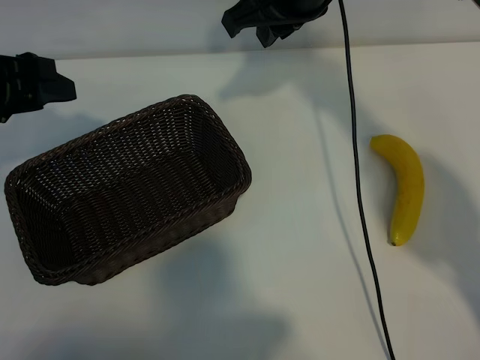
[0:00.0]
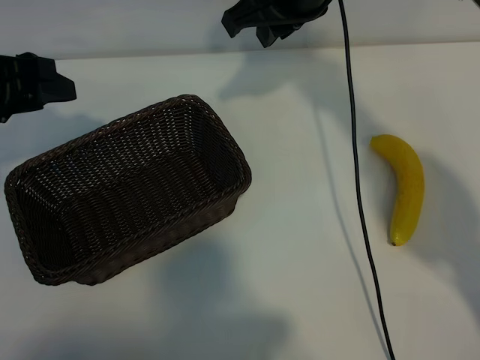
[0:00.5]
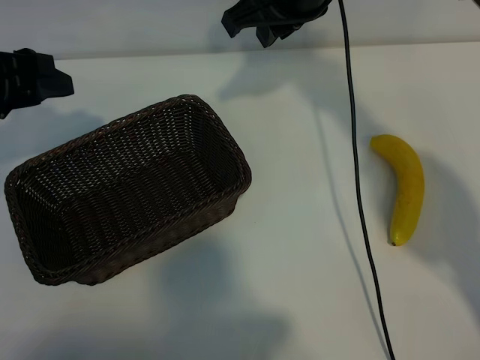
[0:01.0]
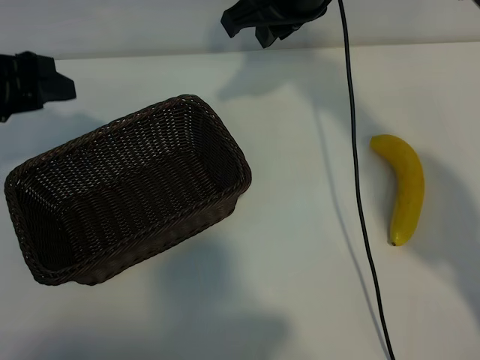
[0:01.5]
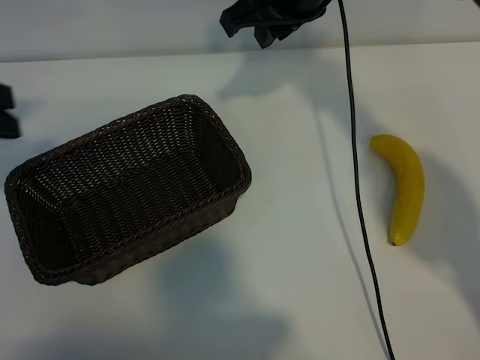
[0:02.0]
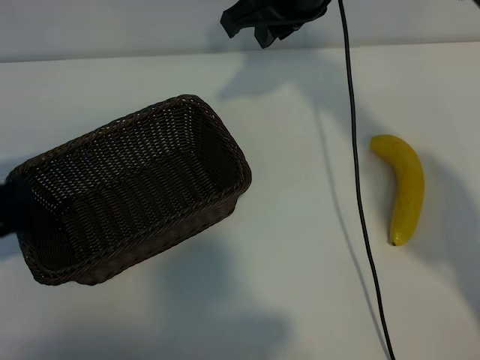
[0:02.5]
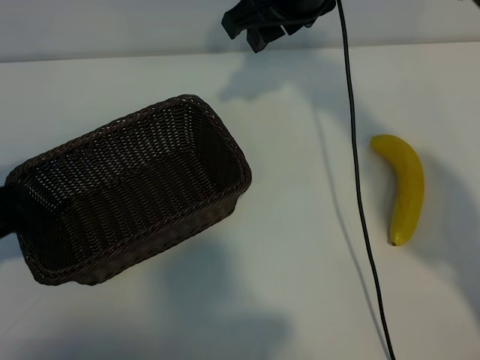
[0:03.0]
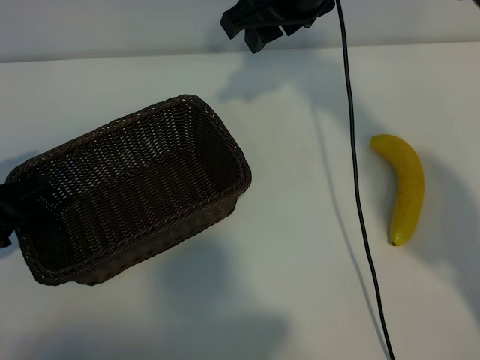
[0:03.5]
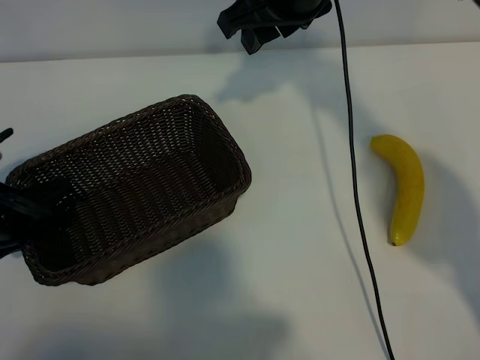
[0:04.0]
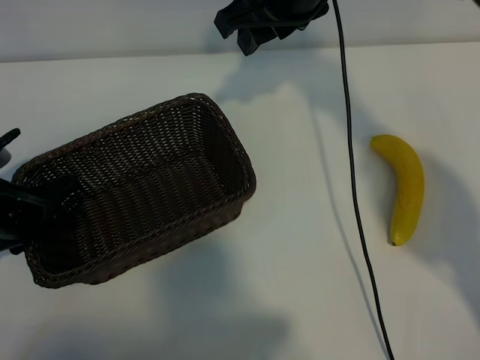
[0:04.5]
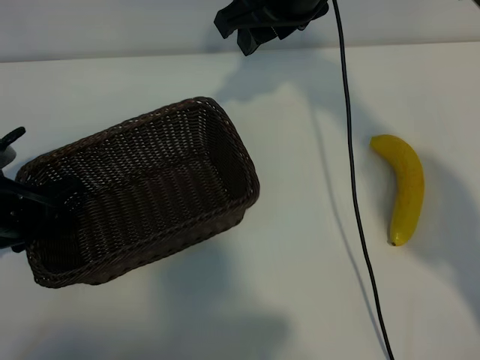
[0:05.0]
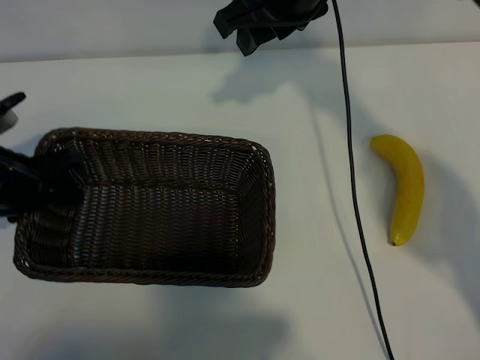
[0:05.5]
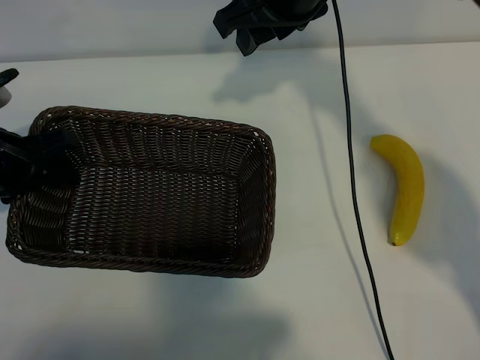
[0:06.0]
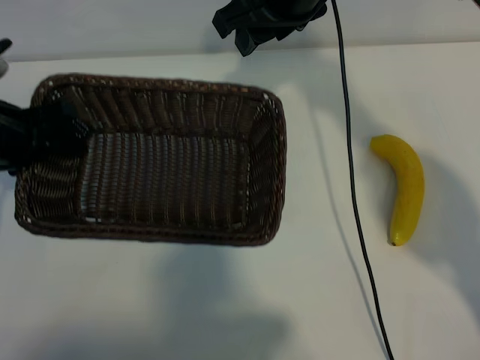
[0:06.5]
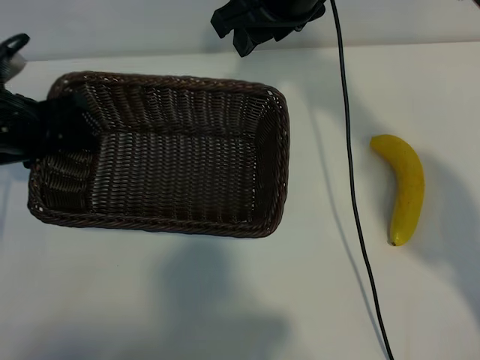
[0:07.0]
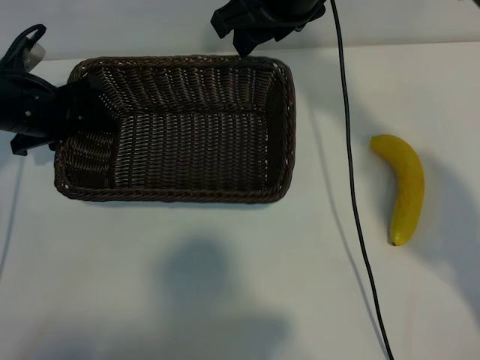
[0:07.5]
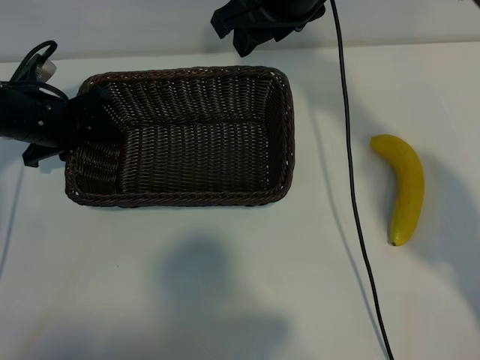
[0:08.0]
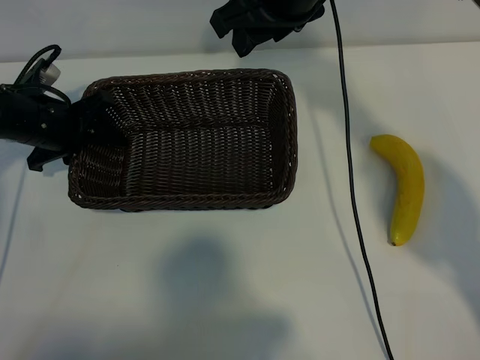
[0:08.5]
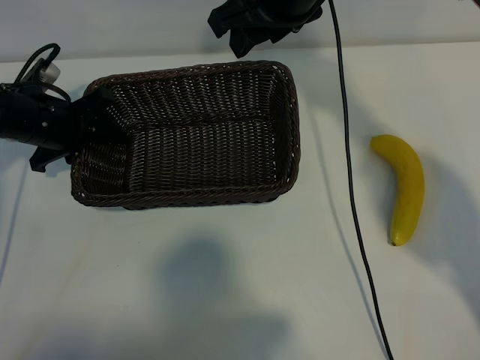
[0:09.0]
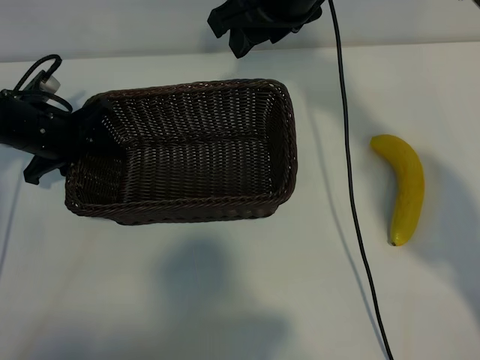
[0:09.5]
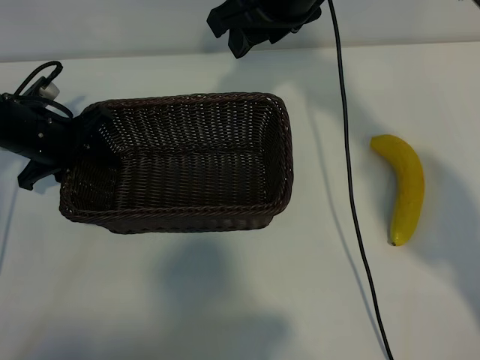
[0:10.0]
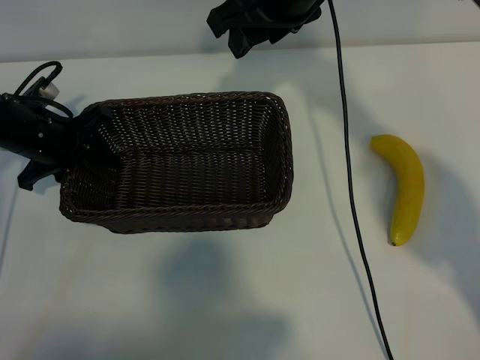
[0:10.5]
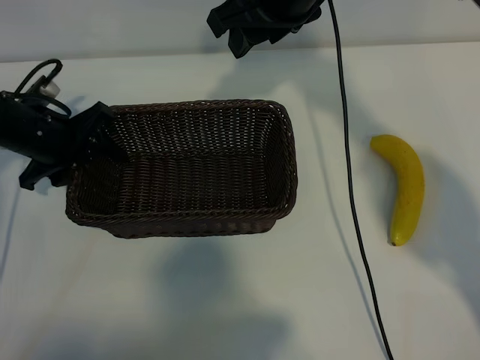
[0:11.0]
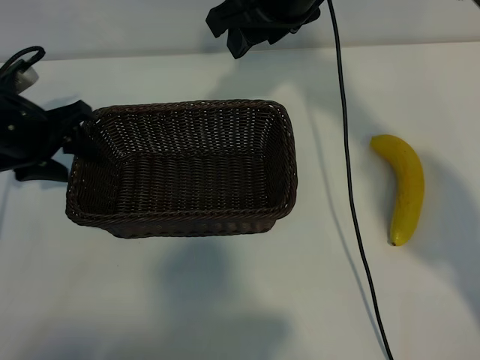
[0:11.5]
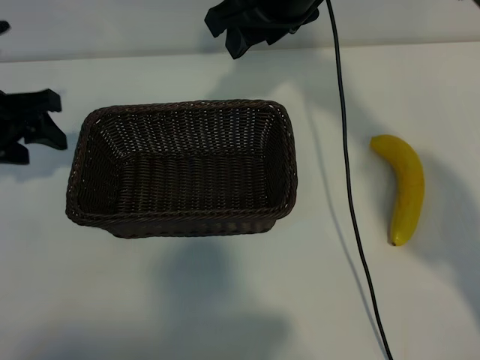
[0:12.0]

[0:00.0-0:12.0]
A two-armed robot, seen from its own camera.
Task of the whole recording: pick up the banana and put it into the basket.
Step, 0:01.0 to 0:04.5: Grasp the basket with the left gripper.
Step, 0:05.0 to 0:11.5: Place the basket in the center of the table with the left gripper.

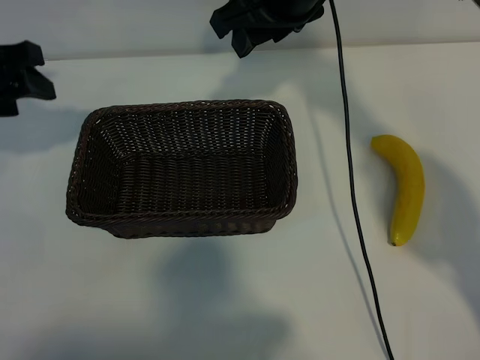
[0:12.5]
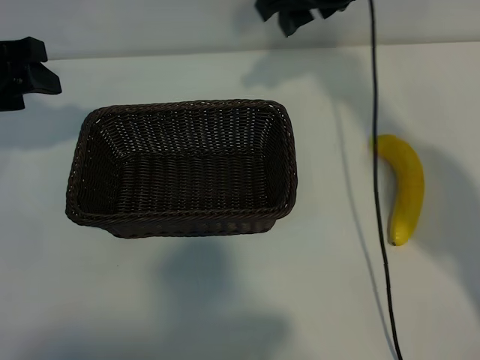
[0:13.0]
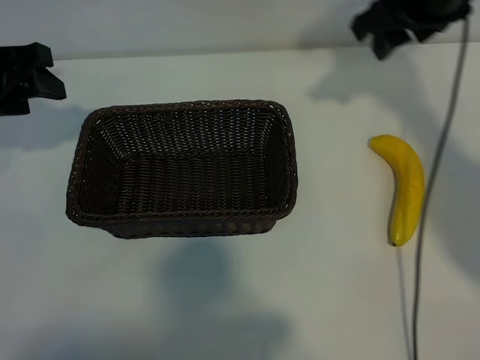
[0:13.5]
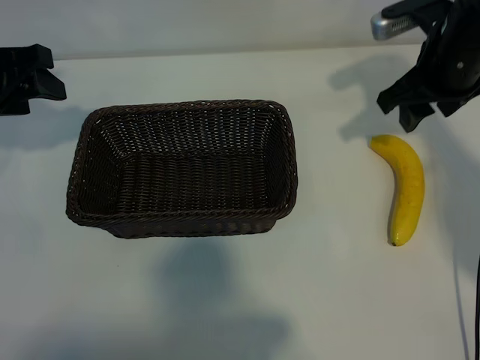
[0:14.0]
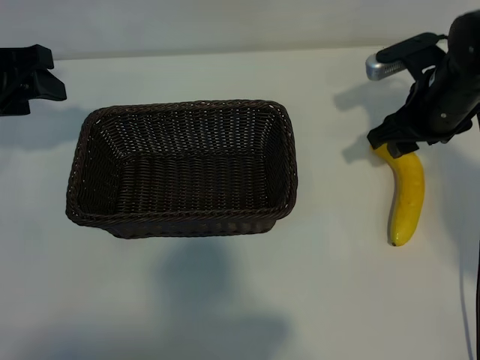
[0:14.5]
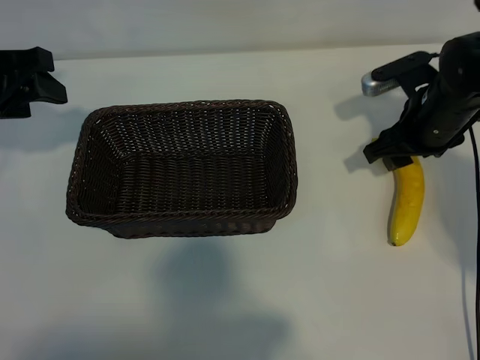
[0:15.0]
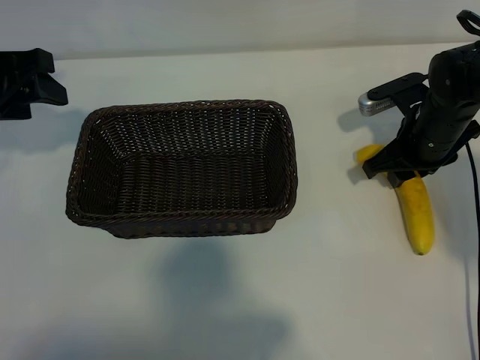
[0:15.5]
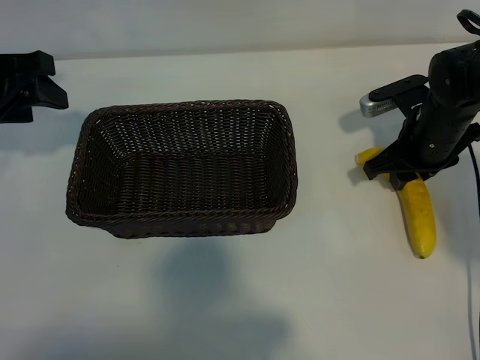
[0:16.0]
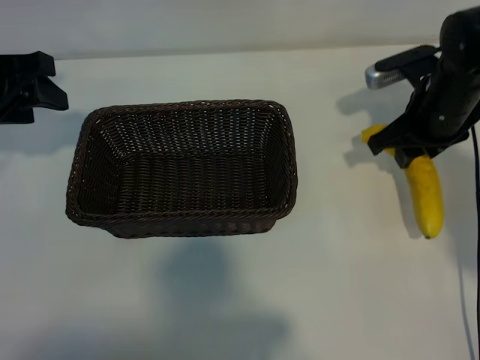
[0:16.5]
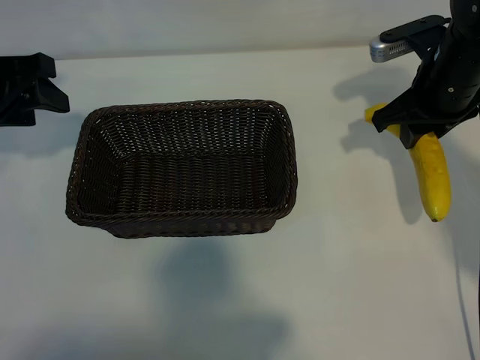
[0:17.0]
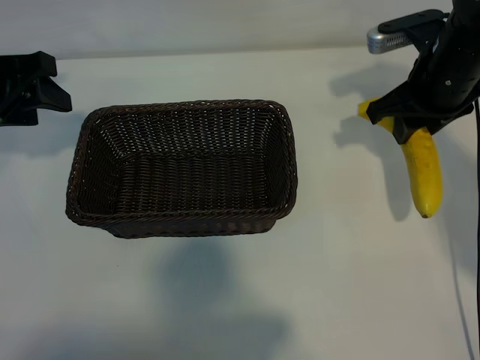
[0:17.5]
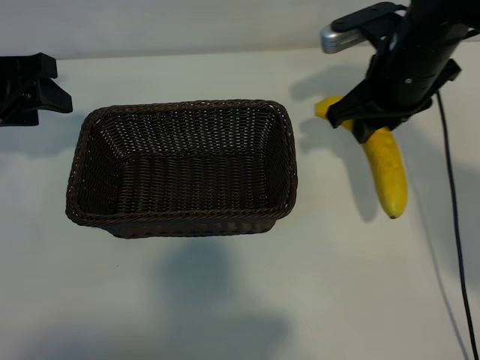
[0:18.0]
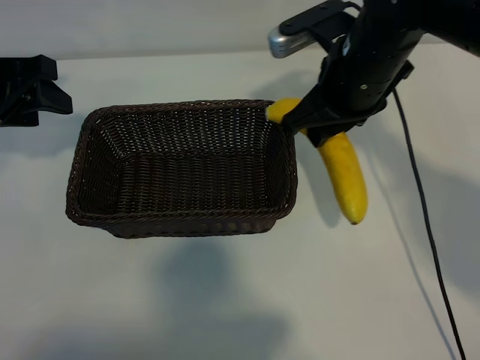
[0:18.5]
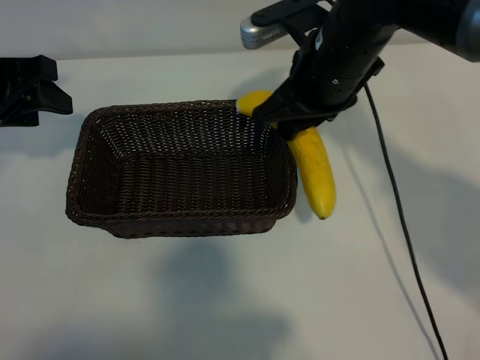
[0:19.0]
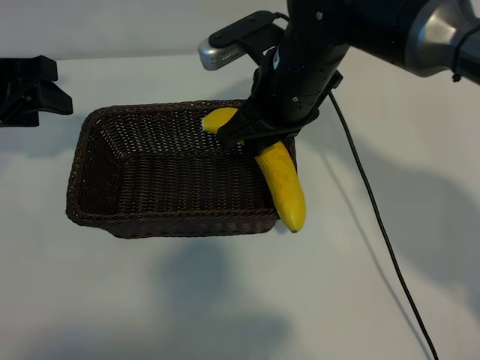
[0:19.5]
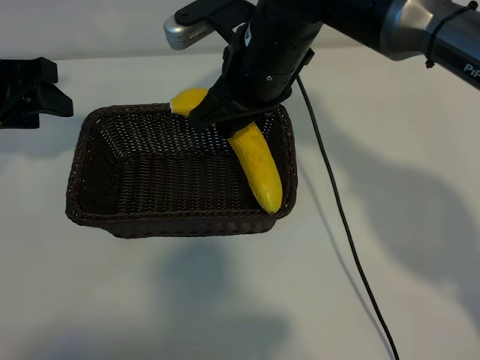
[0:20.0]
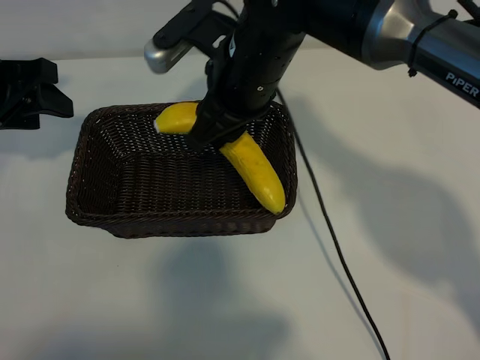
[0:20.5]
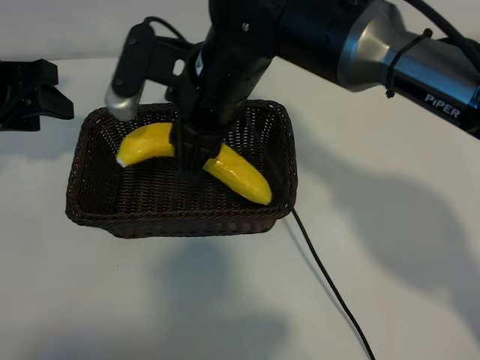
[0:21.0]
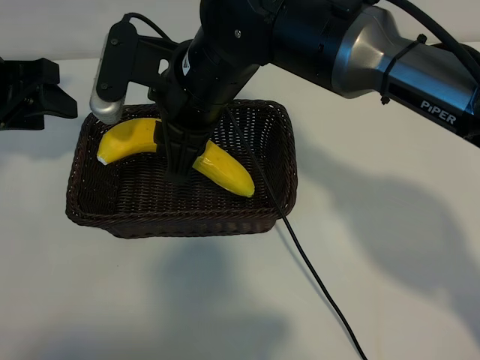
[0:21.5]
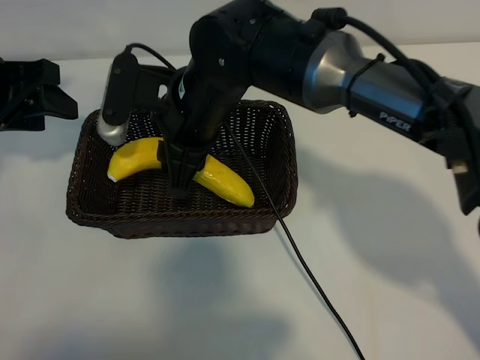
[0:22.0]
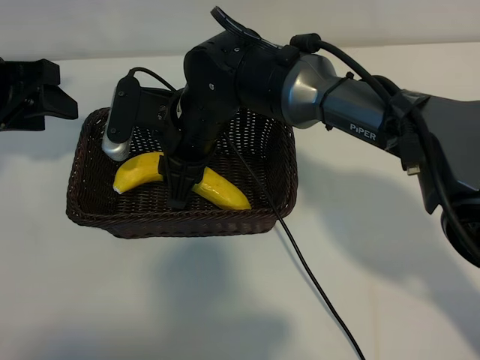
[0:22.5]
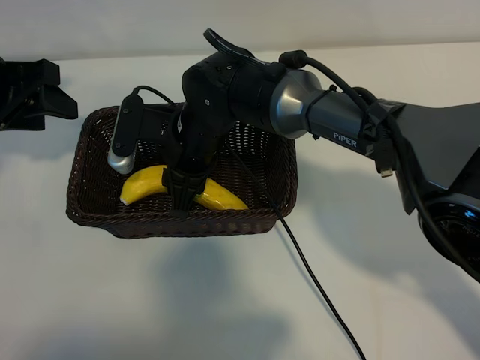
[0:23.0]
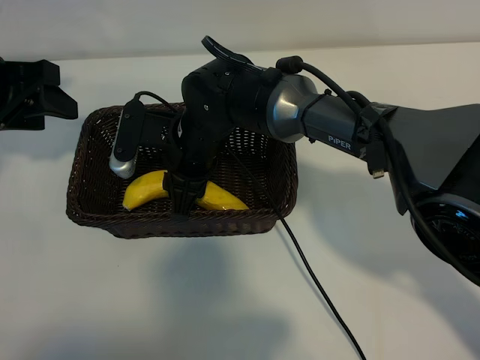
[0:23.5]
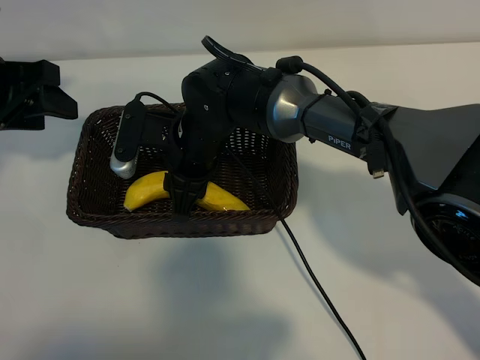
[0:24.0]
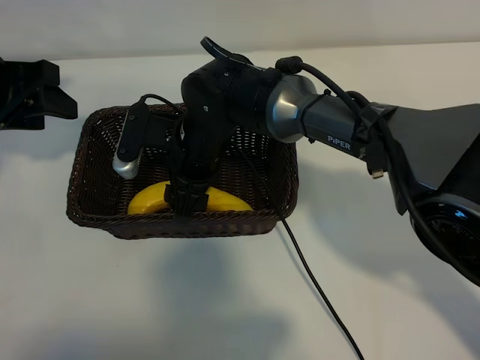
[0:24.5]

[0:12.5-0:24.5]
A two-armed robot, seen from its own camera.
Task of the whole recording: pick up the banana and put it into the basket.
Step, 0:12.5 to 0:15.5: Grasp the banana with right gripper.
